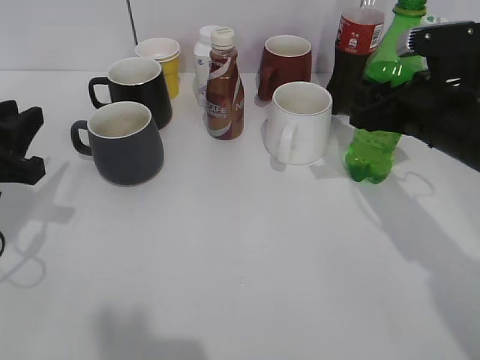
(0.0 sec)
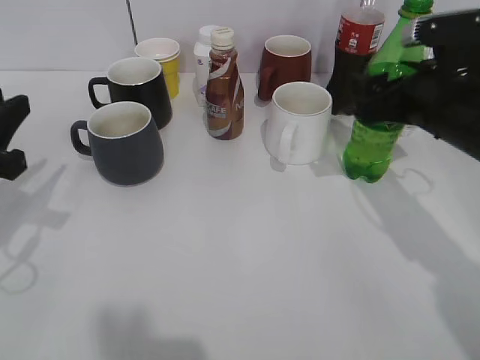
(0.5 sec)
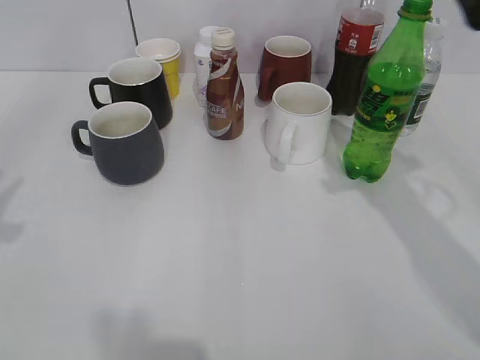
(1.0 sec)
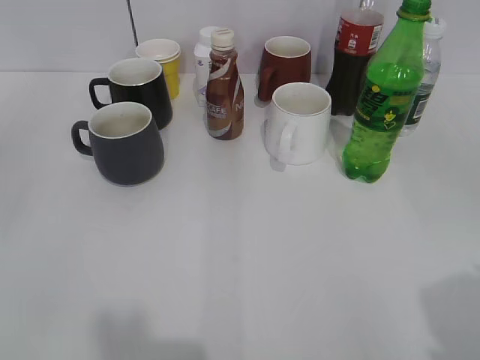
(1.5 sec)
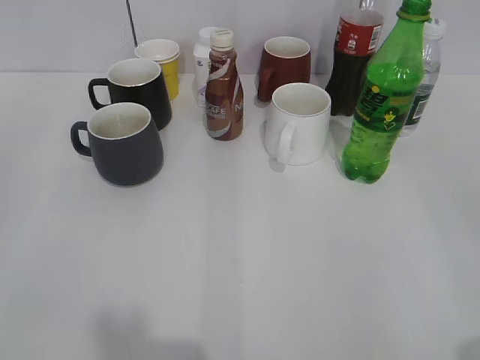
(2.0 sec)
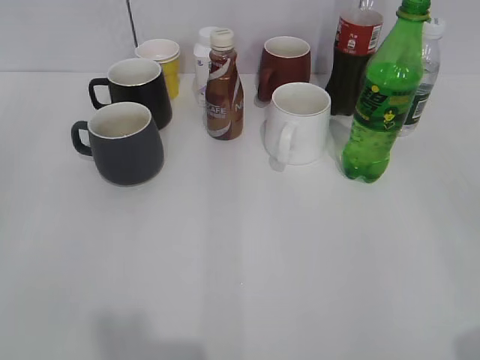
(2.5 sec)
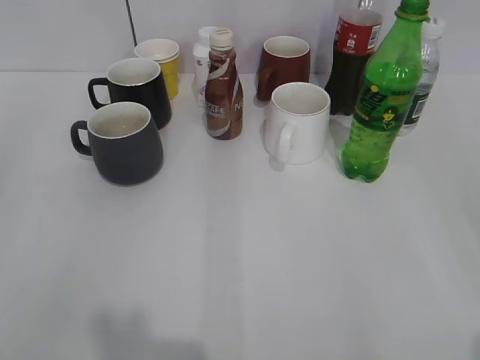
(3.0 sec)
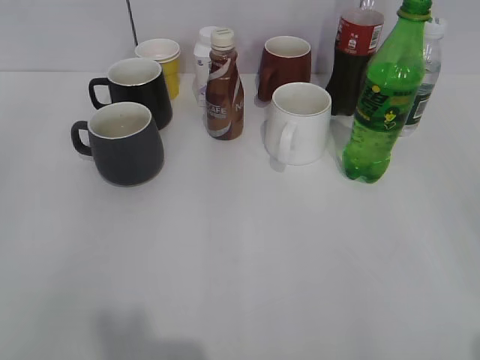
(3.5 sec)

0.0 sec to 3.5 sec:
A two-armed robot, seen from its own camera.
0.0 sec to 2.0 sec: The left gripper is displaced backward and upward by some 25 cm, and opens. The right gripper heads backward, covering roughly 30 cm, and opens up.
